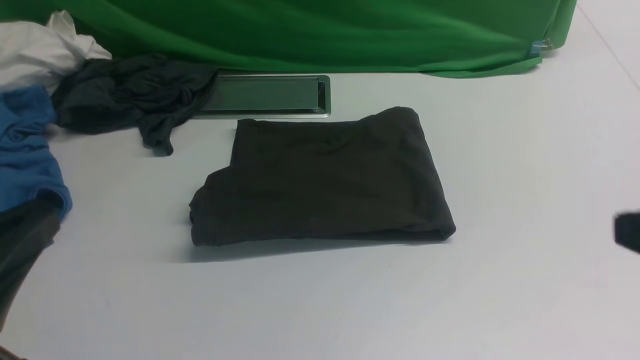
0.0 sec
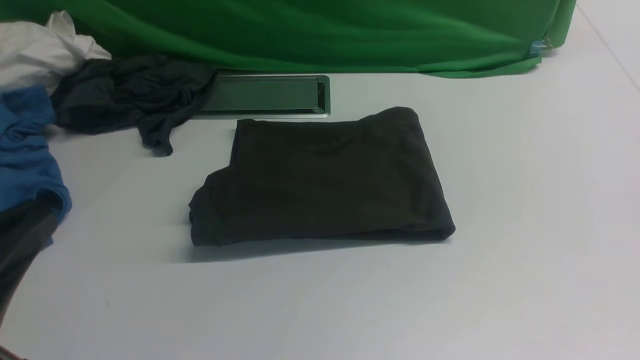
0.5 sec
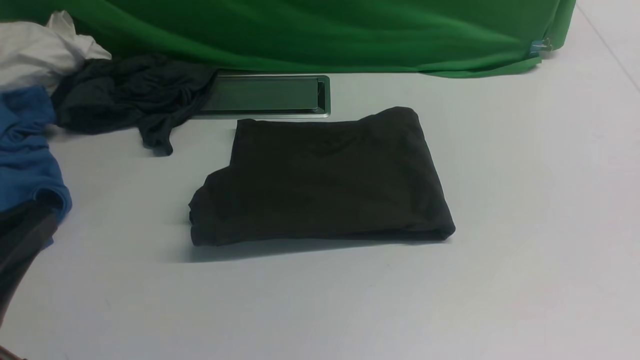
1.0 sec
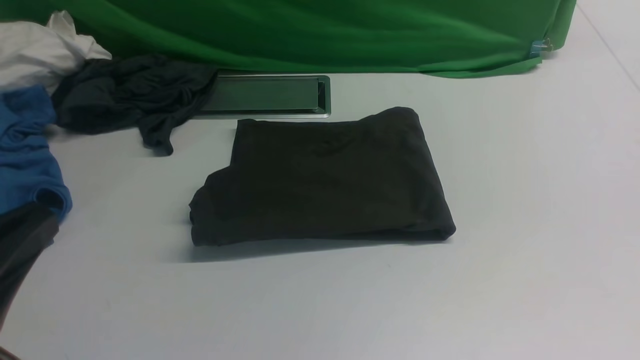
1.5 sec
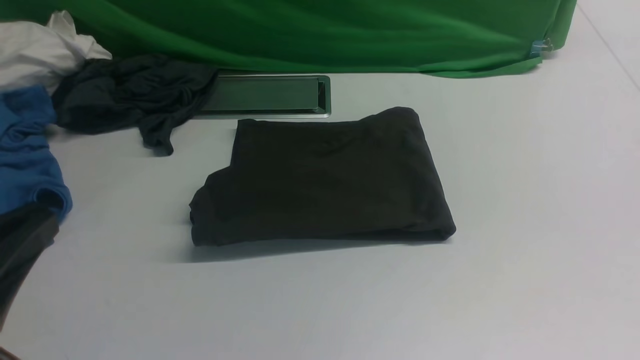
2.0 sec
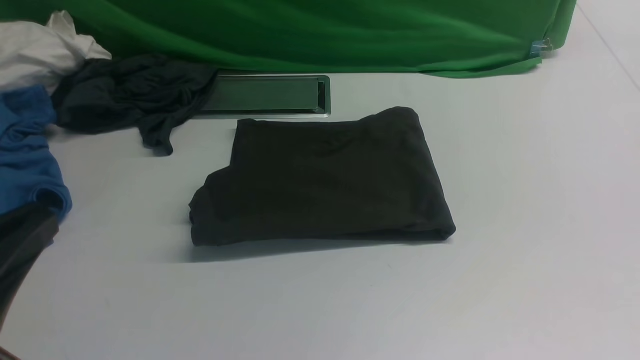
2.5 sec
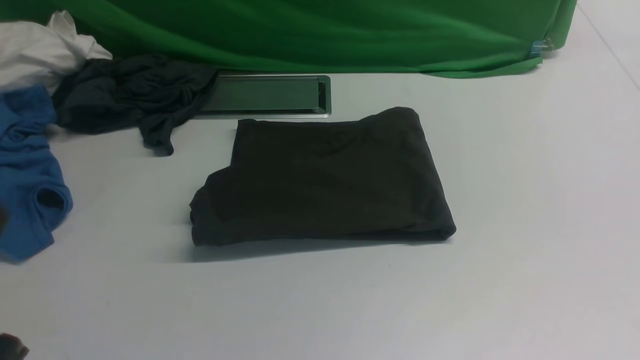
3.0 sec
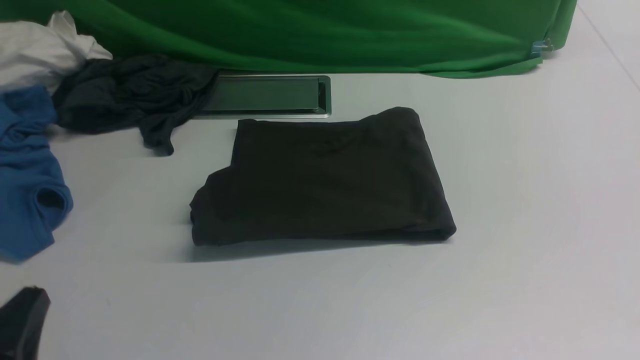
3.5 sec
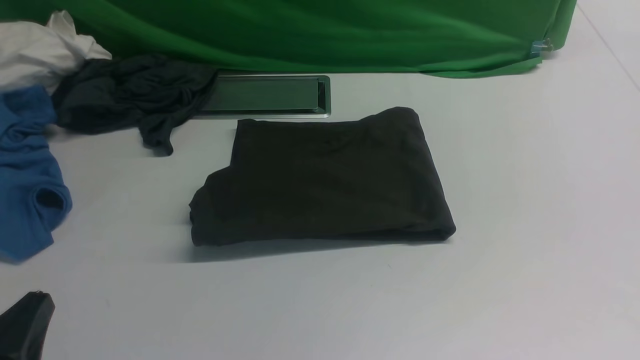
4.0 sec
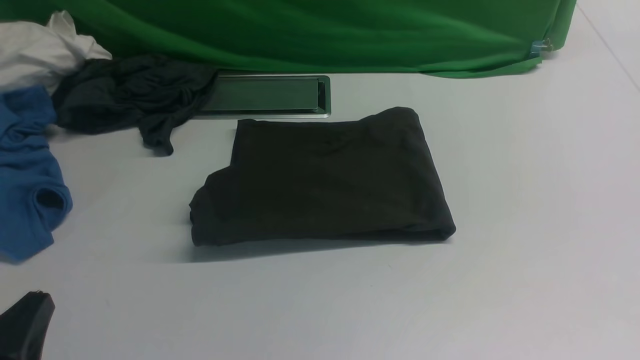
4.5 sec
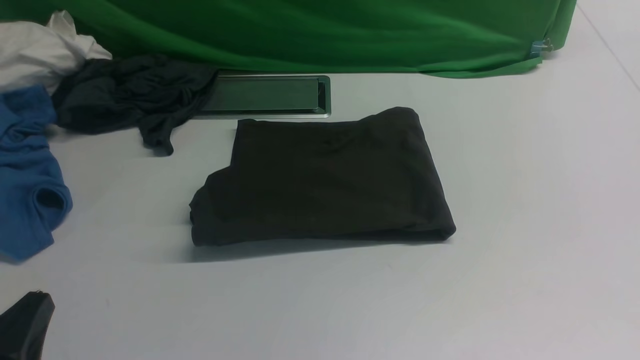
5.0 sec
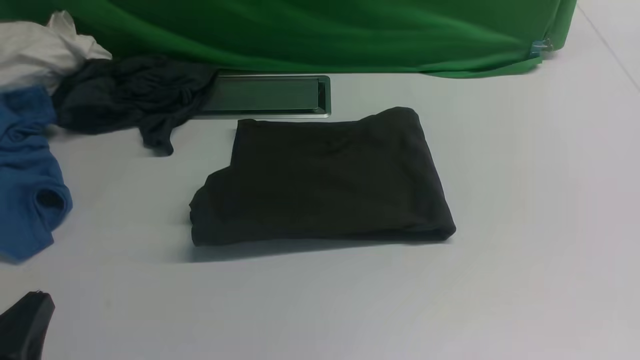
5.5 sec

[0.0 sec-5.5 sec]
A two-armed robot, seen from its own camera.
2.0 sec to 3.5 sec: The left gripper is displaced downward by approximately 10 cm.
3.5 sec to 5.5 sec: Both grippers stay about where they are.
